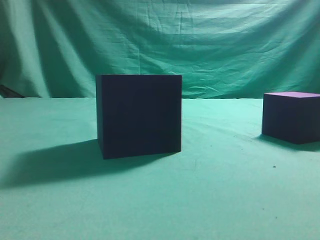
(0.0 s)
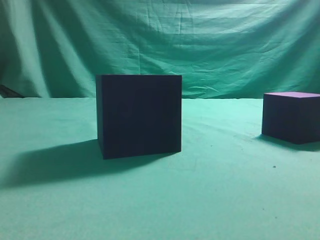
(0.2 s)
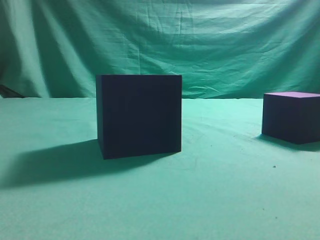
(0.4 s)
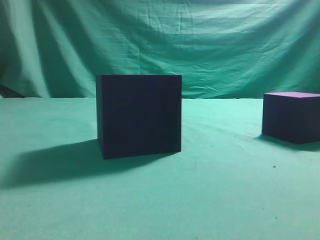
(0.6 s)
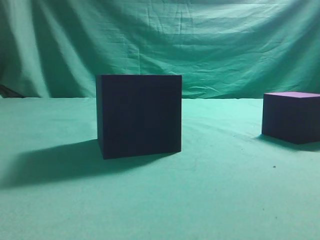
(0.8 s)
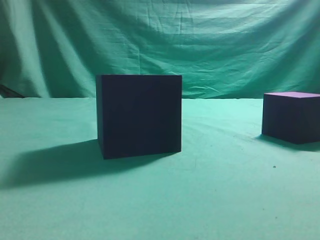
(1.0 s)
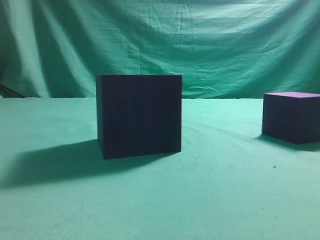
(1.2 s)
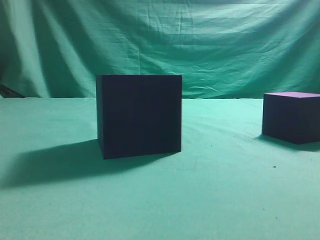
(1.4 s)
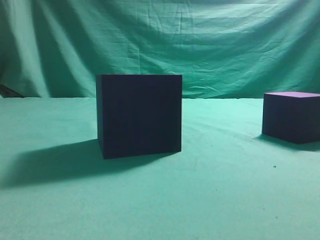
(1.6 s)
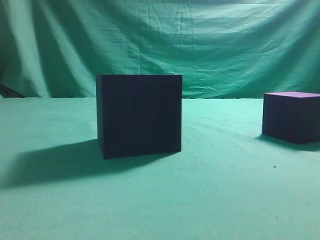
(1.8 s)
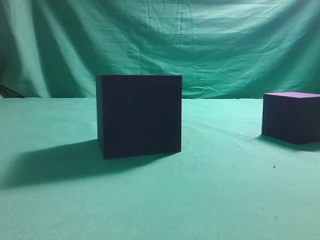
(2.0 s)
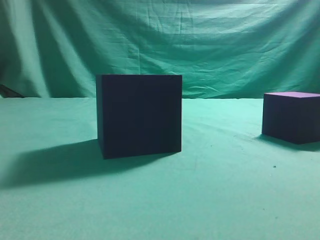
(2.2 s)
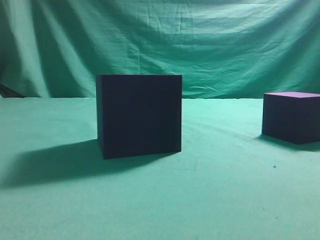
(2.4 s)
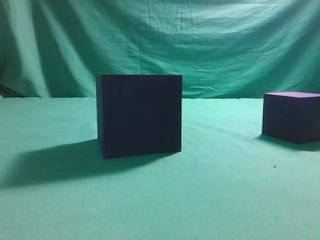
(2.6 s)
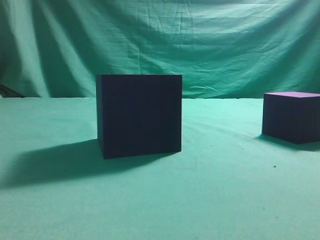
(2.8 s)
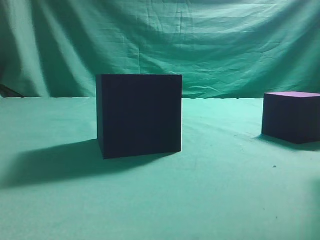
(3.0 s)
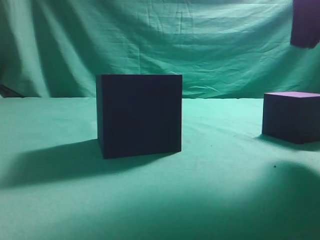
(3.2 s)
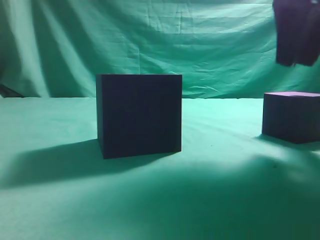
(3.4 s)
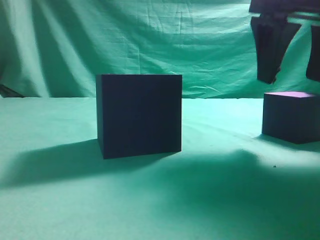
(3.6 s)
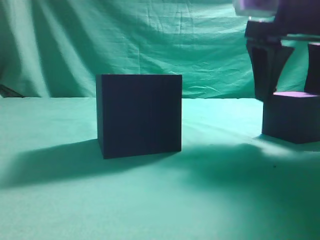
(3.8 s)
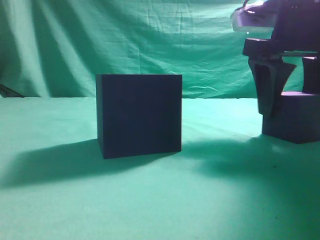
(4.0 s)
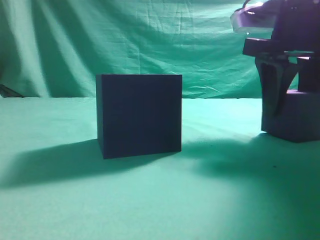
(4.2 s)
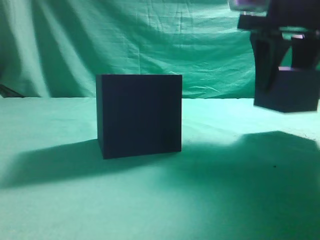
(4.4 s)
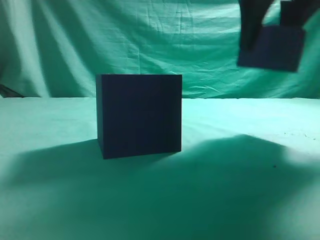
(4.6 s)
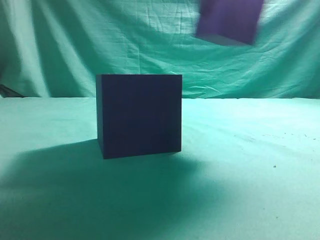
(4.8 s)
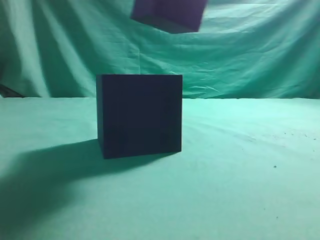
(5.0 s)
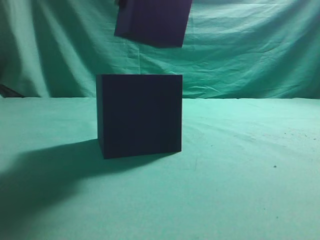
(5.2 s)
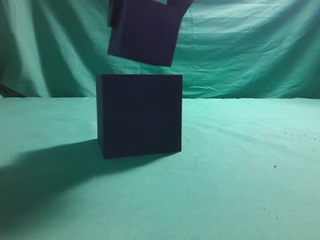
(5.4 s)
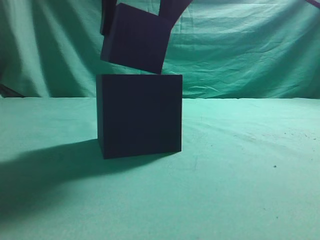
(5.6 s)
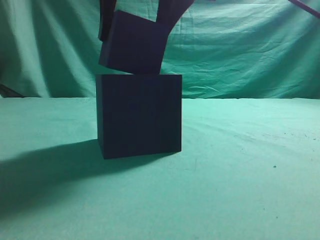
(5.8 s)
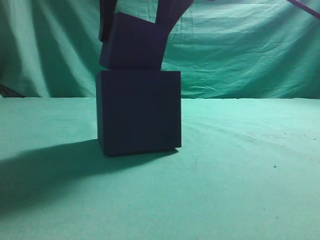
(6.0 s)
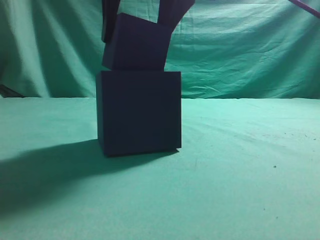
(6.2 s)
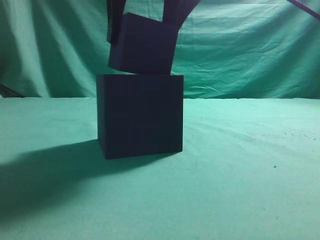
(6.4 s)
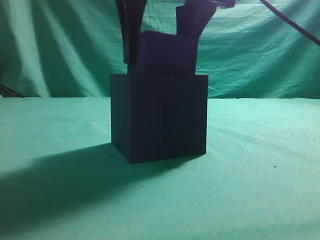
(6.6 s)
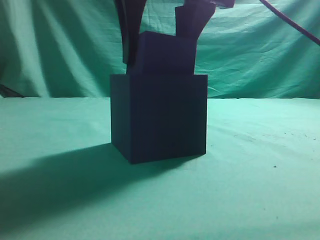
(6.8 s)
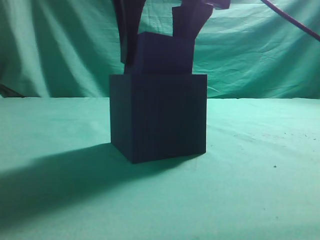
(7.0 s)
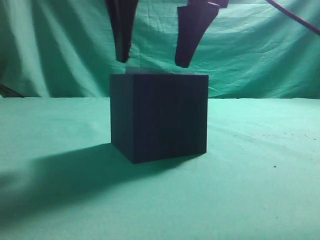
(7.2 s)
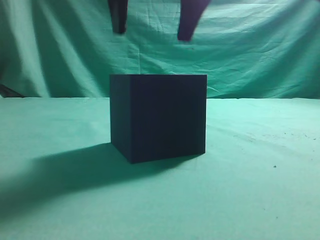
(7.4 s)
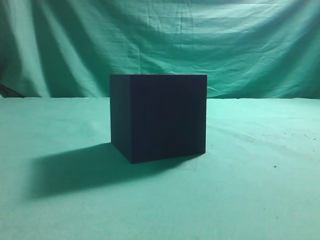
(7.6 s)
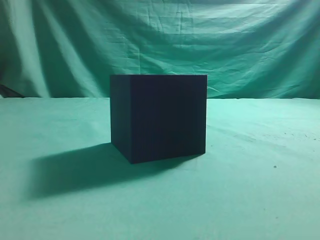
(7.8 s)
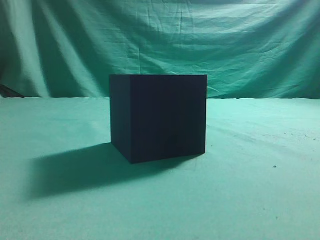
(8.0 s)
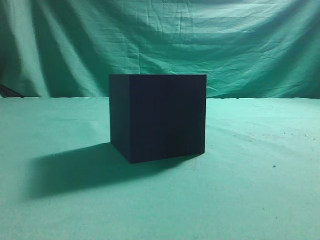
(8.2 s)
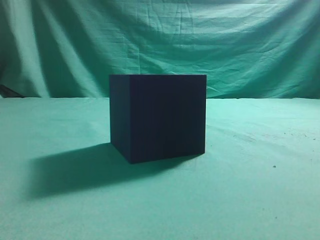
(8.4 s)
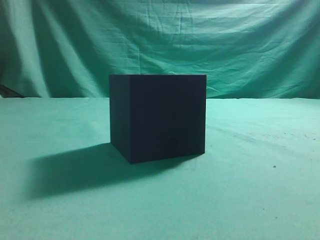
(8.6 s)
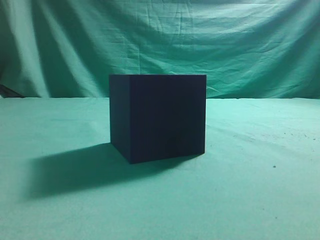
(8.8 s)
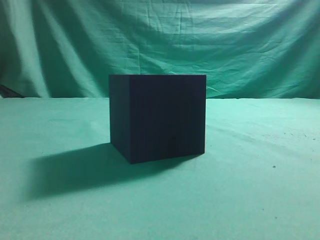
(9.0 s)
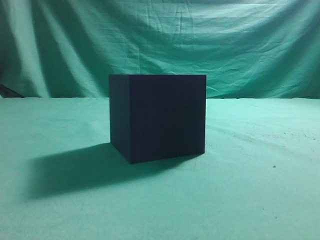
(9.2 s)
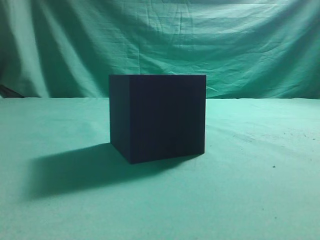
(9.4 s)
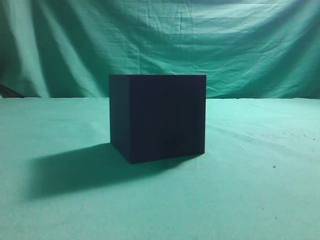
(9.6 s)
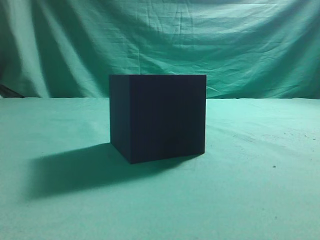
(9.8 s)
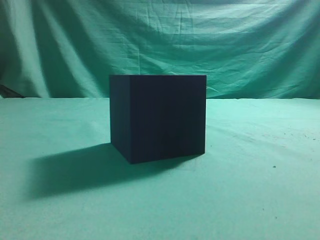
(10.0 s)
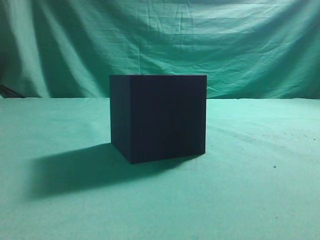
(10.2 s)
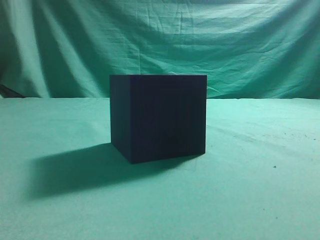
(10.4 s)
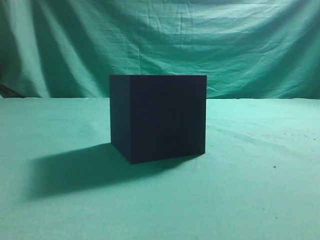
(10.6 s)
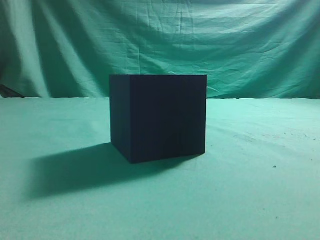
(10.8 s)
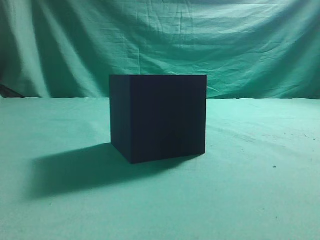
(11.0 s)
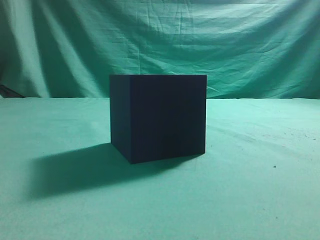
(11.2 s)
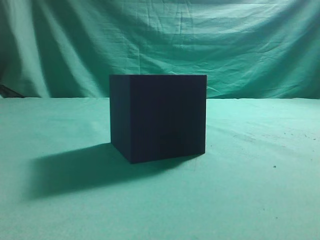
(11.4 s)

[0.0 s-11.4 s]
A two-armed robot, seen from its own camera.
Task of the whole recording: pick up the cube block and place it into the cube groove.
Step, 0.0 to 4.2 s: Grasp the cube.
Step, 4.4 to 7.2 s: Place cube into the cube-shaped recess.
2.8 to 4.2 s: The right gripper goes approximately 15 cm forward, downward and to the left, and opens up.
4.2 to 5.6 s: The right gripper goes roughly 20 cm to the left and upward.
5.6 to 7.2 s: There are only small adjustments of the grippers.
7.2 to 8.6 s: The right gripper is displaced to the right, backward and upward by roughly 35 cm, and closes its fingers.
